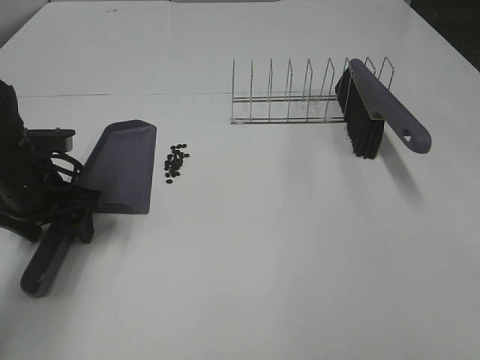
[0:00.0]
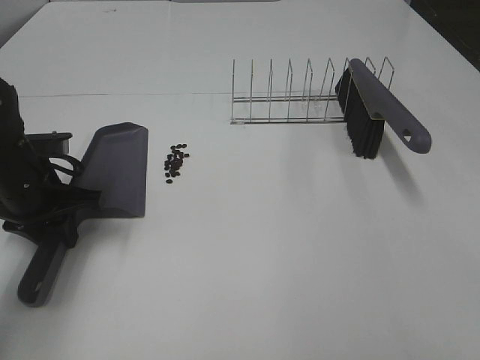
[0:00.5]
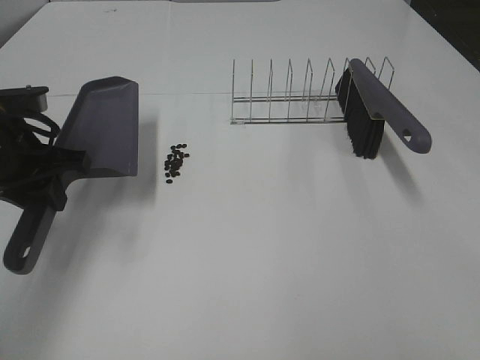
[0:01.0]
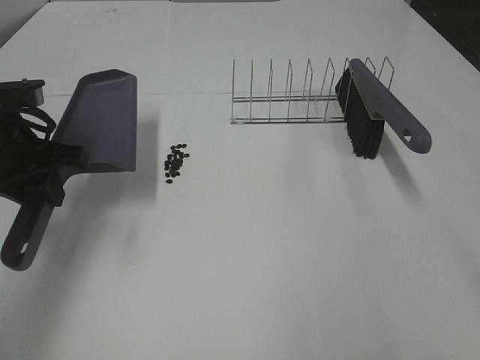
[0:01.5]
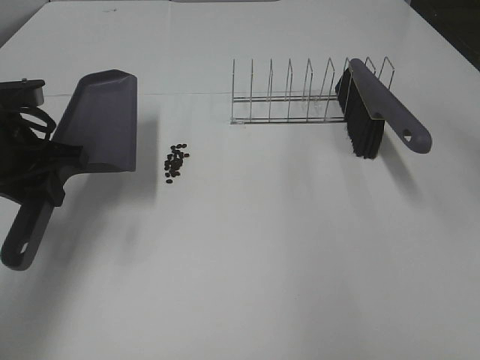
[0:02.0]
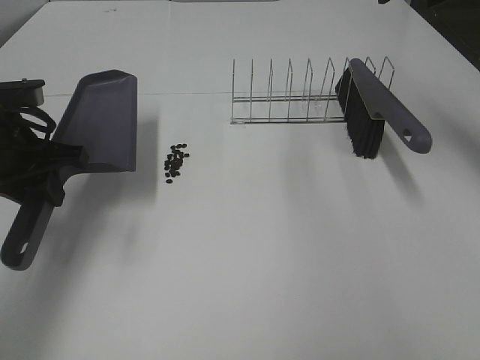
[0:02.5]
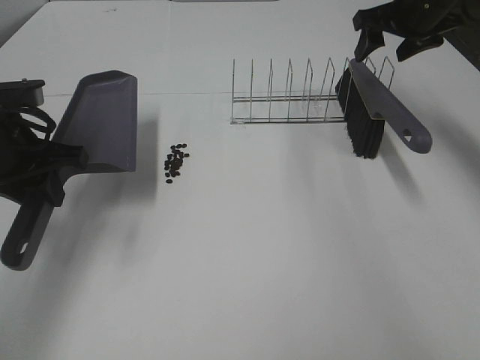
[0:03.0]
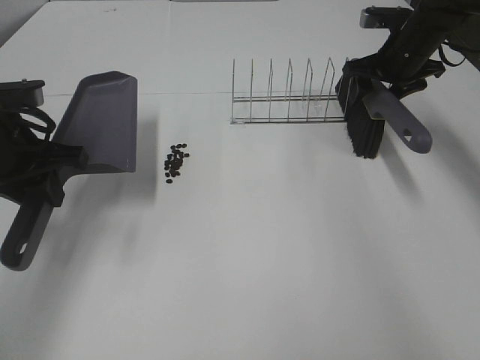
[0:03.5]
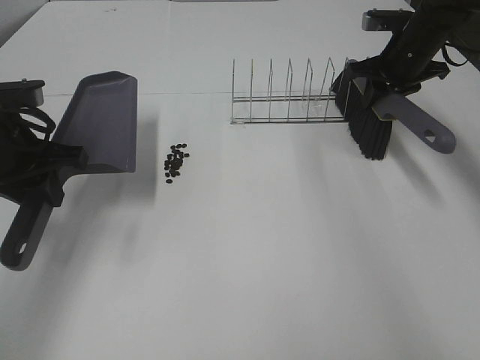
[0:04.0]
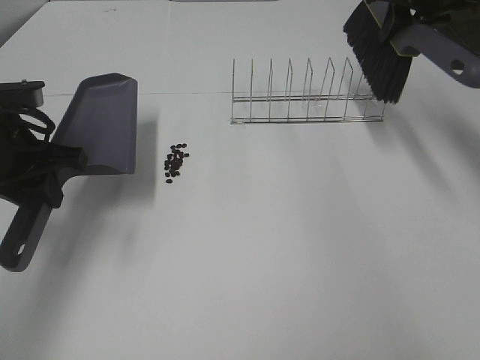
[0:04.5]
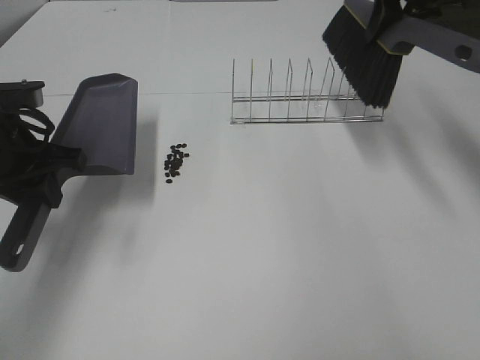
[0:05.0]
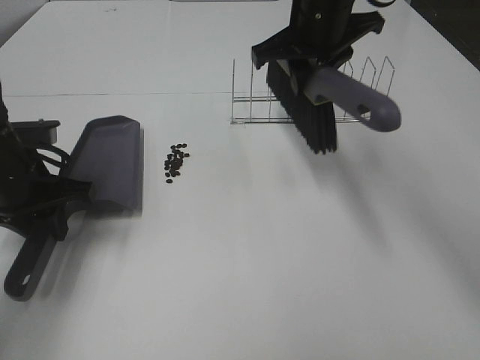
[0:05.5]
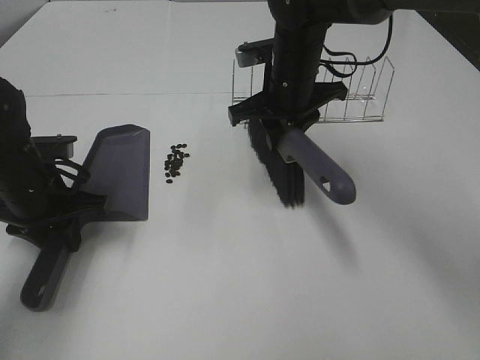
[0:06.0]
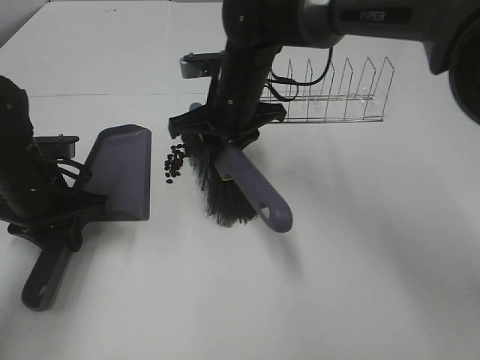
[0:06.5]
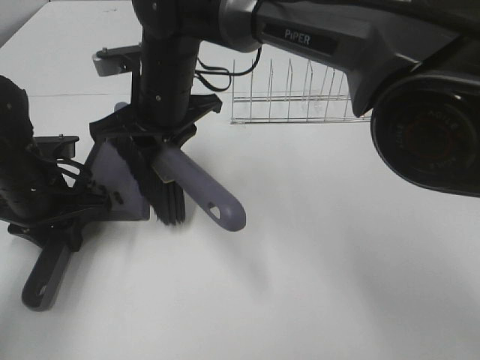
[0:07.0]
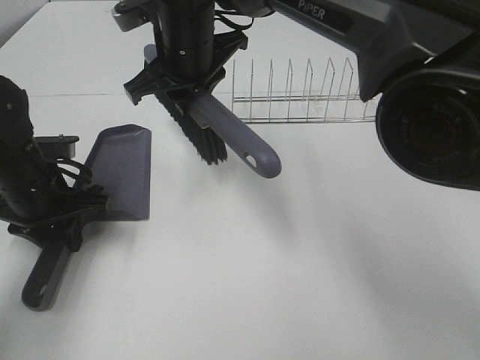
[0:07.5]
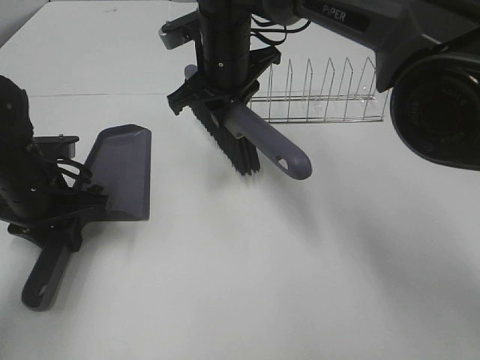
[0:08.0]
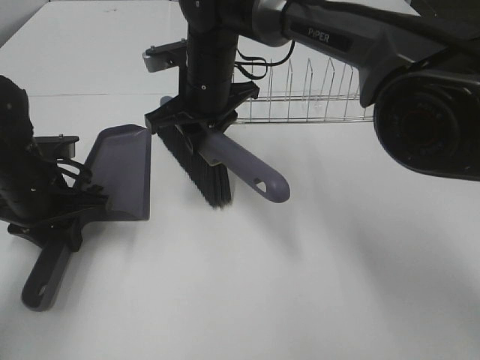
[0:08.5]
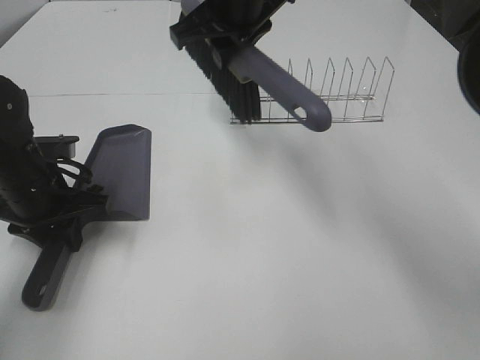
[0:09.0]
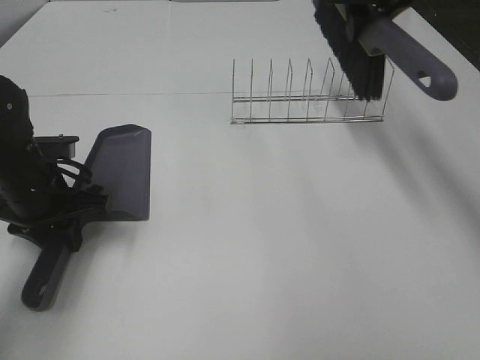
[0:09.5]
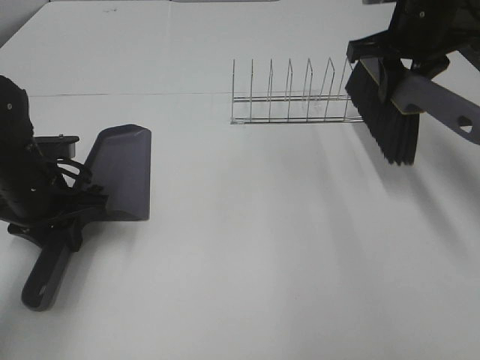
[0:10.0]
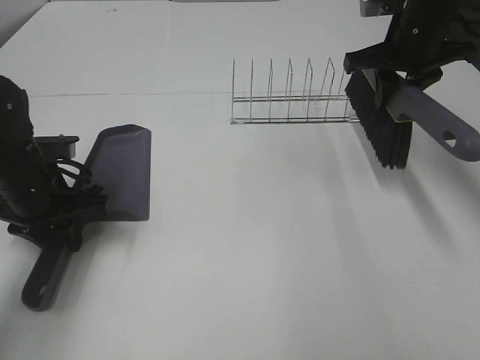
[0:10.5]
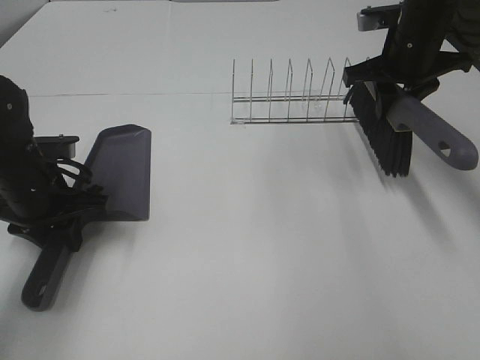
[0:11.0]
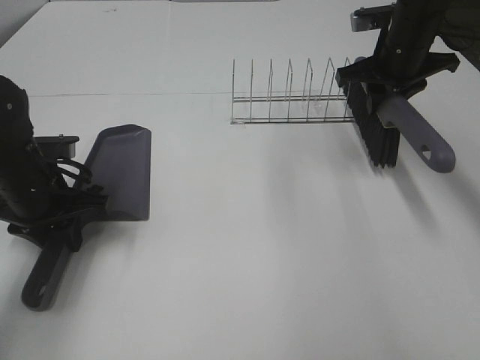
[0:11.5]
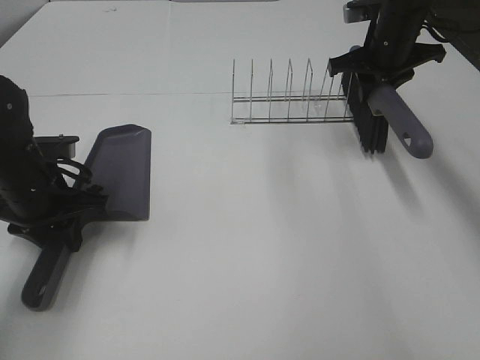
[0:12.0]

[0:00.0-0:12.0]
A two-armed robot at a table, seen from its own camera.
Task of the whole recording: Sweep Coffee Bean.
Step, 0:01.0 to 0:04.0: Right hand:grab the broom.
Step, 0:04.5 to 0:08.5: Right hand:sweep the coffee beans into the dustpan.
0:00.0 to 0:02.0: The left gripper goes about 5 cm upward, and closes.
0:02.0 to 0:04.0: The right gripper moves forward and downward, roughly 30 cm, and closes.
0:04.0 to 0:06.0: The right gripper moves to the left and backward, about 20 cm. Meanwhile the left gripper shifts approximately 5 cm downward.
0:06.0 to 0:08.0: The right gripper goes approximately 10 cm to the left.
0:08.0 to 0:10.0: The right gripper shifts approximately 25 cm to the right.
0:10.0 to 0:12.0: The right gripper heads forward and downward, covering approximately 10 cm.

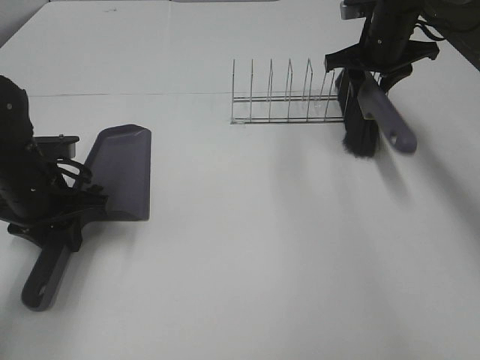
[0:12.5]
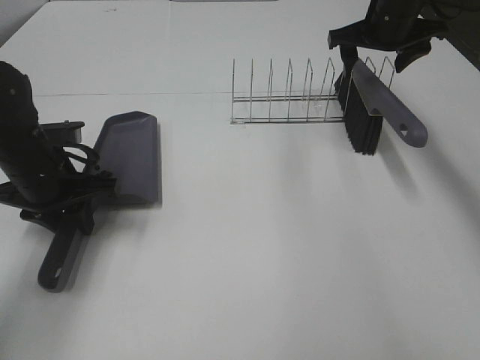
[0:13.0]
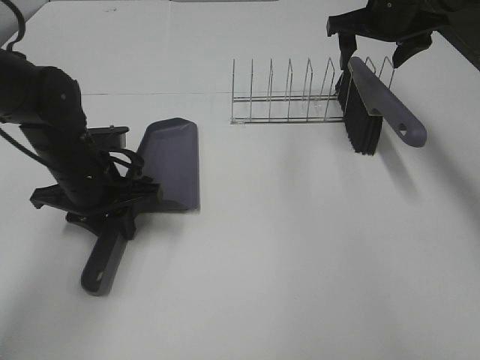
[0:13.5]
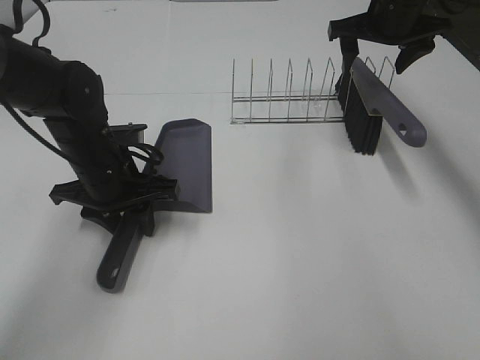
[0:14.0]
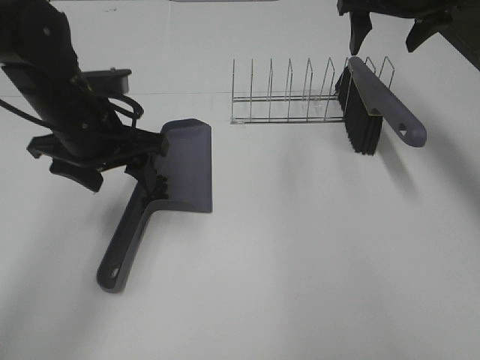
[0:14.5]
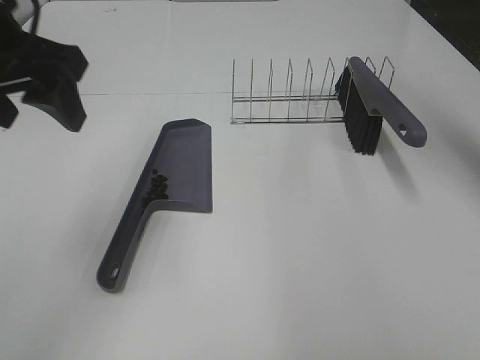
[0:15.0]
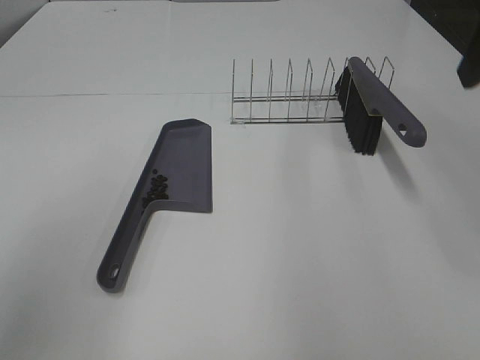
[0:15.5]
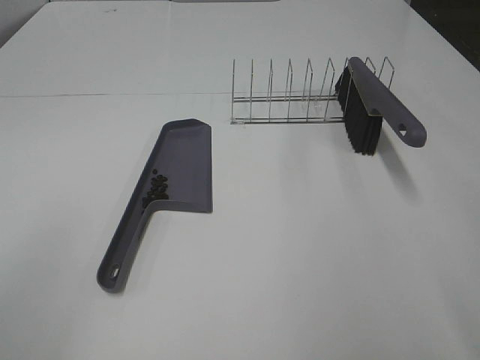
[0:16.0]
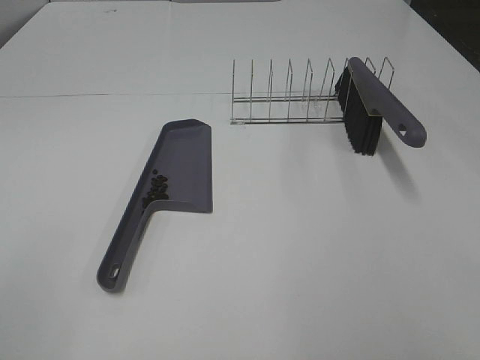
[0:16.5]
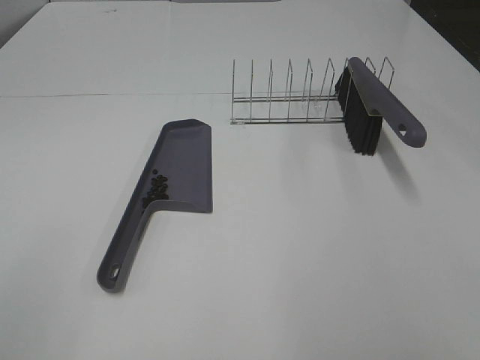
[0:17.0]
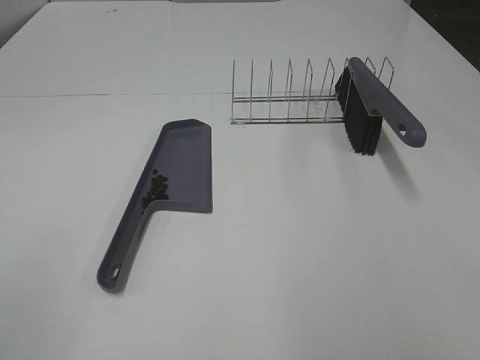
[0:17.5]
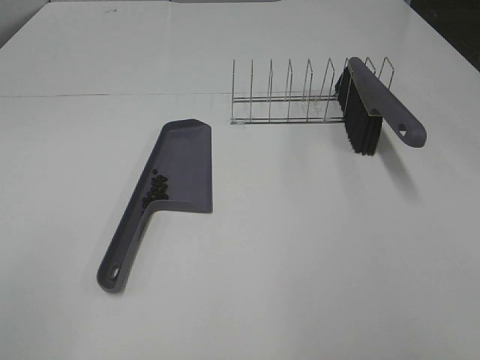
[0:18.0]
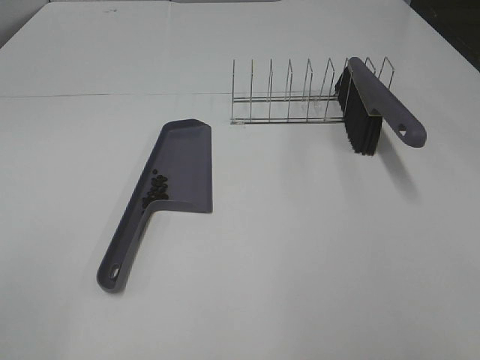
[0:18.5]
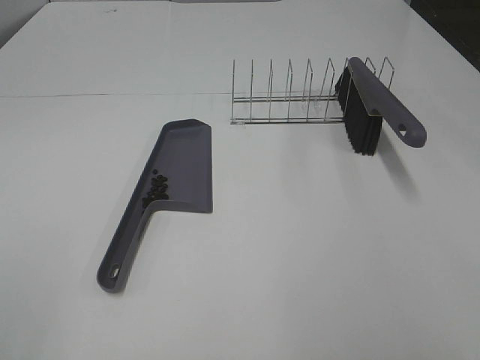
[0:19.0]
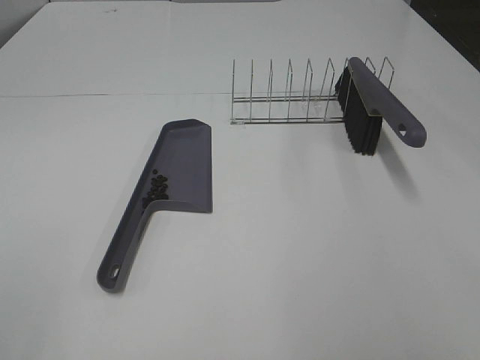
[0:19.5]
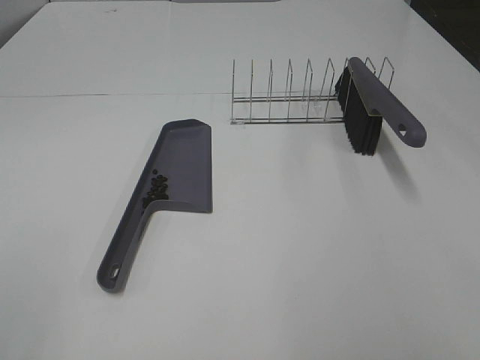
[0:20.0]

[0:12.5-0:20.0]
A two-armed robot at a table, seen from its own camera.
Task of the whole recording: Sweep Coffee Bean.
Step, 0:13.5 to 0:14.5: Left hand:place the dustpan on the table.
0:12.5 to 0:14.5: The right gripper goes roughly 10 cm upward, and opens its fingers, while the left gripper goes roughly 10 cm upward and to the right, and opens.
0:14.5 to 0:16.5: The right gripper goes approximately 50 cm backward. Meanwhile the left gripper heads backward and to the left, covering approximately 35 cm.

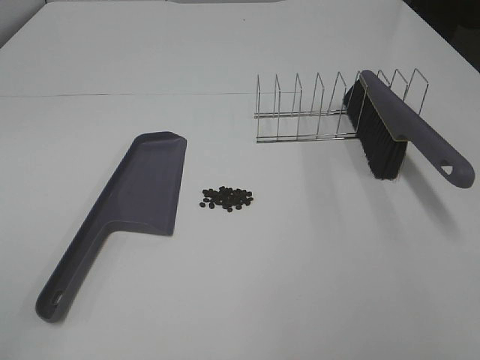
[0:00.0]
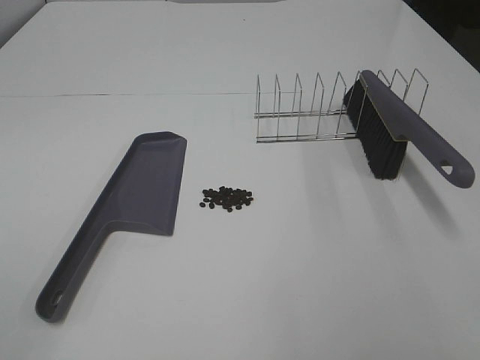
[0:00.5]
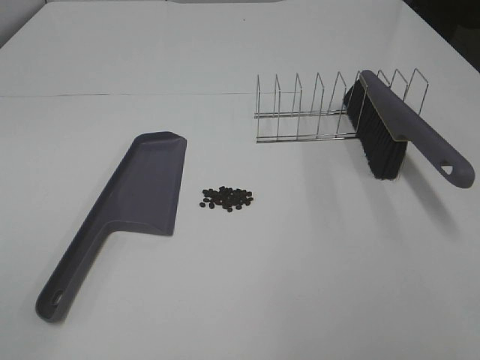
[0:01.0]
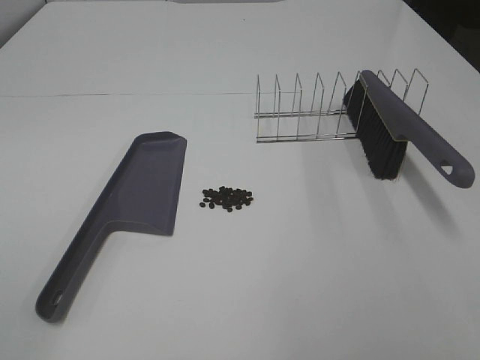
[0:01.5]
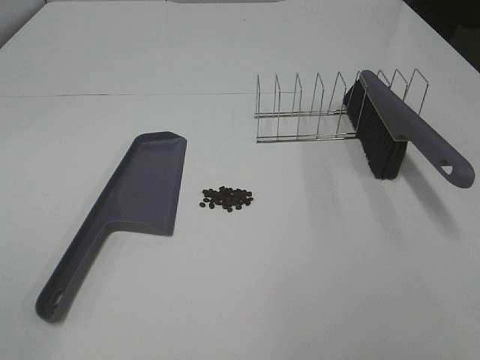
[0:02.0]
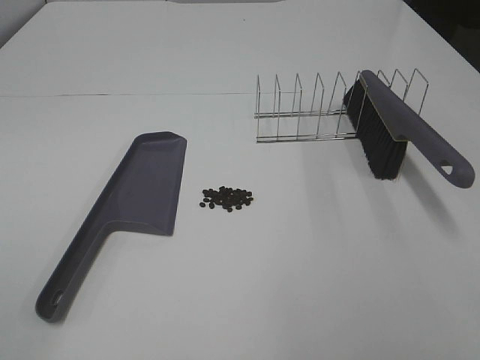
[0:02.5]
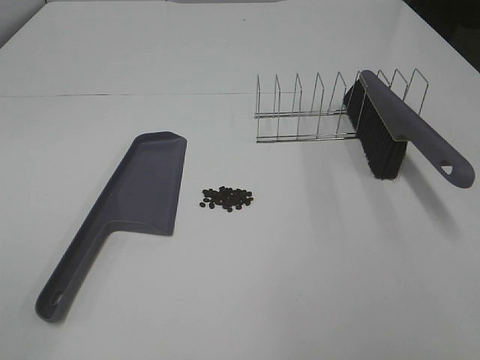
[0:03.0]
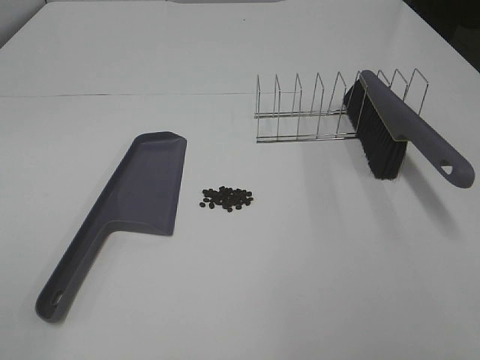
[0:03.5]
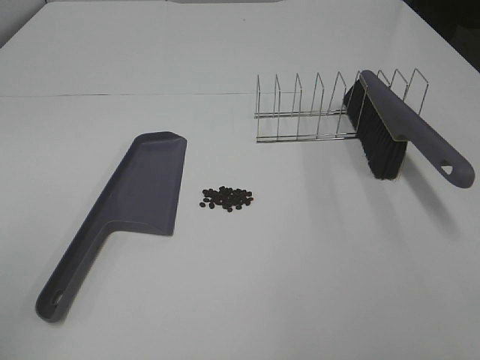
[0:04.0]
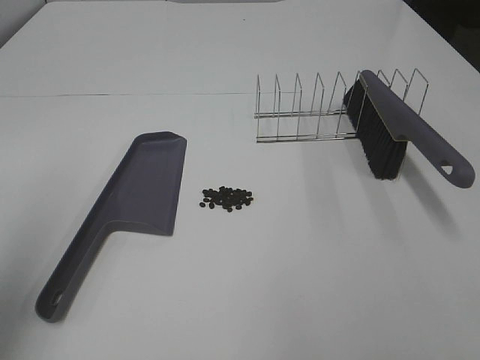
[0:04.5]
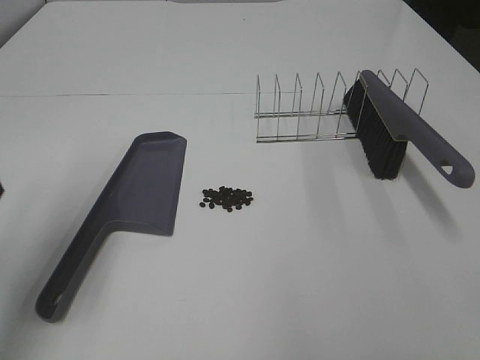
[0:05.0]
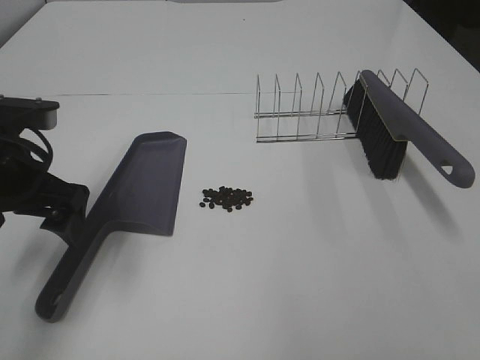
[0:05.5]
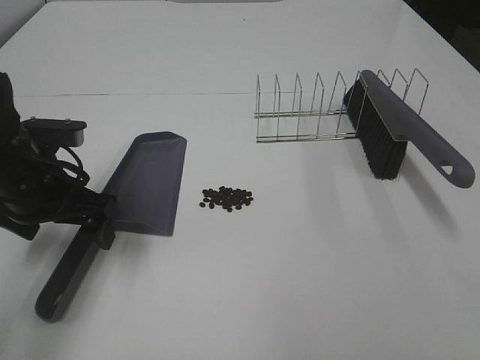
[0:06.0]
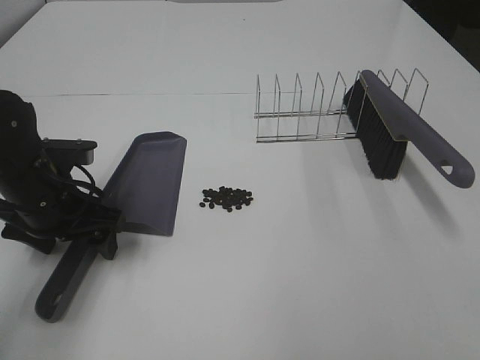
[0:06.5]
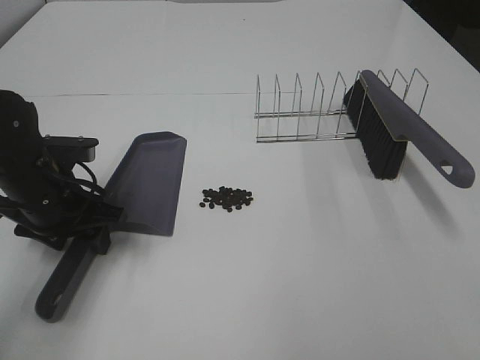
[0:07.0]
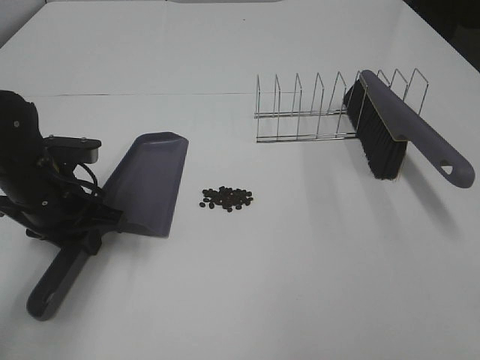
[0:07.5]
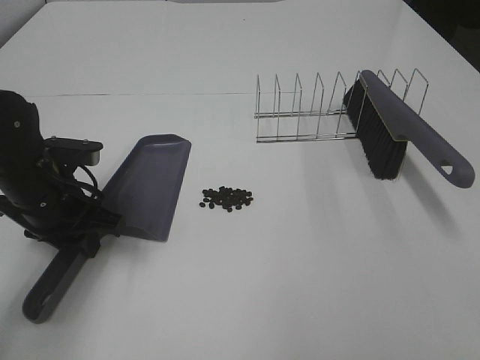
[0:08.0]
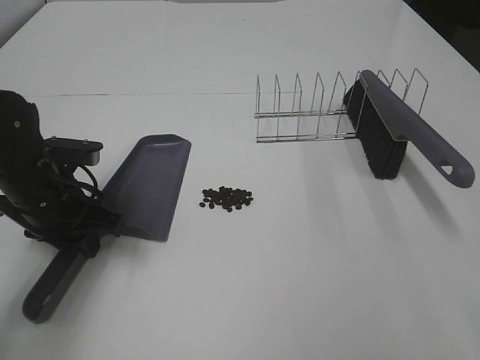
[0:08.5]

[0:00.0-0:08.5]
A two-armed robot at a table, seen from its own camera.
Task of the whole recording: Sweep Coffee Bean.
Step, 0:00.0 to 0:07.0: Left hand: grab the dustpan.
0:04.0 to 0:06.5: The left gripper heads forward, downward and to the right, covering about 35 cm.
0:06.5 to 0:08.5: The left gripper closes up.
